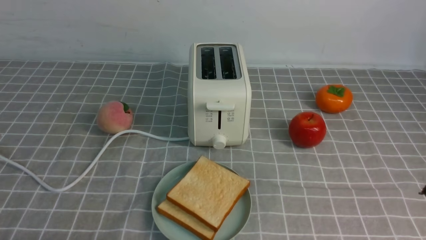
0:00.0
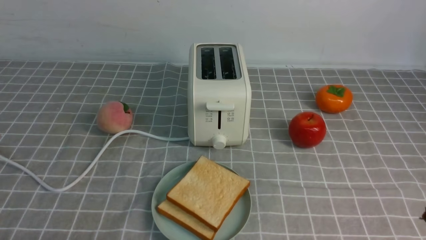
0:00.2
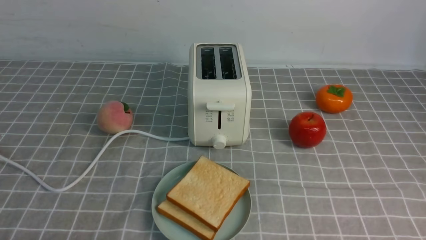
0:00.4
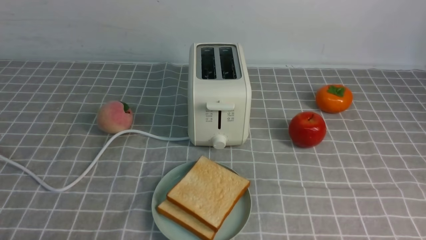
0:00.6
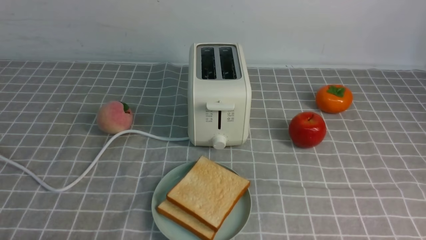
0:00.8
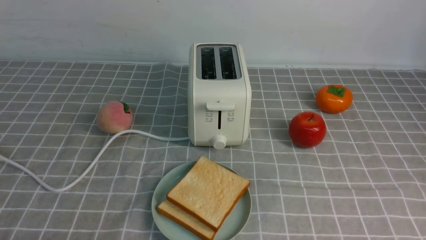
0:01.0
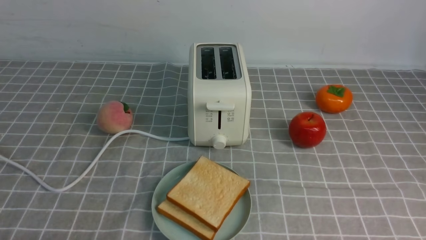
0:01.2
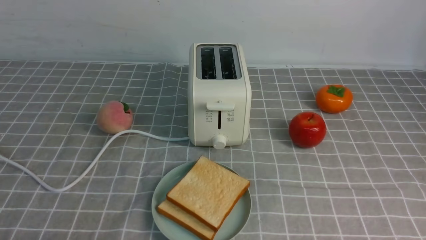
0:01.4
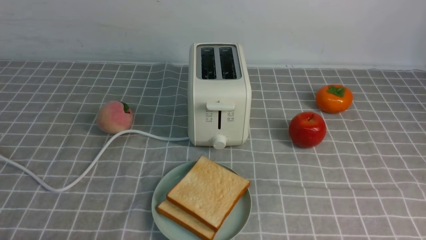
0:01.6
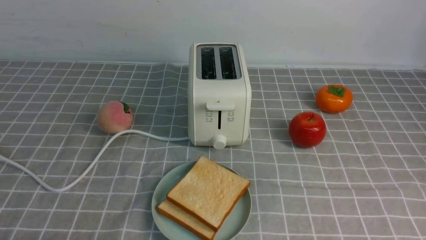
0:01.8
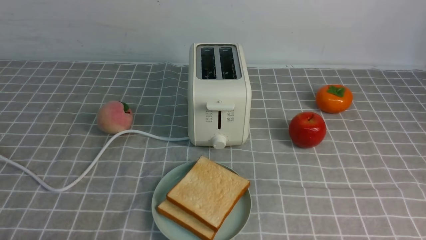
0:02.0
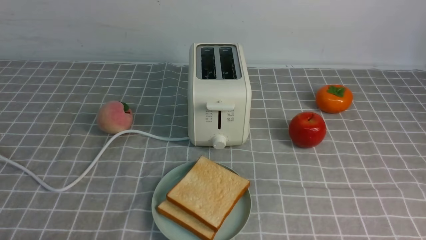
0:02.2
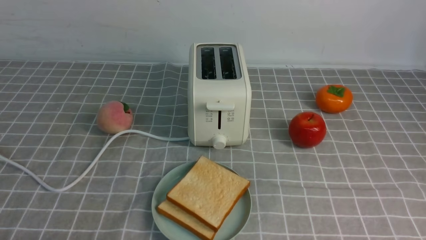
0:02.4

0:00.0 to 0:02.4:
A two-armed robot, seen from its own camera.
Task of the whole recording: take toasted bread from bread machine on grey coffee table place on plate.
0:01.2 to 0:02.4: The two grippers keep their place.

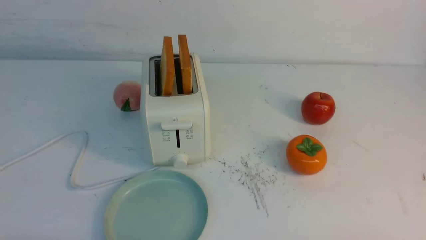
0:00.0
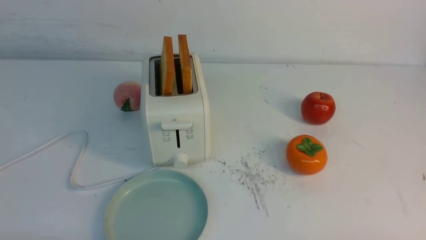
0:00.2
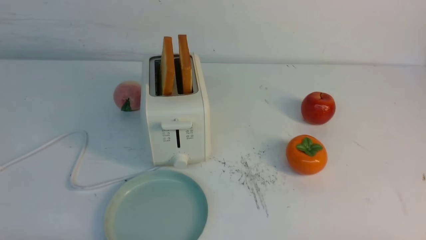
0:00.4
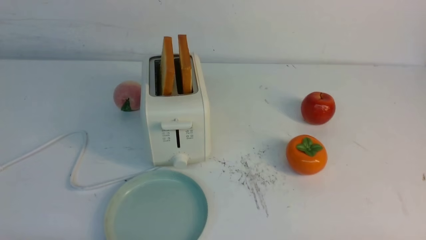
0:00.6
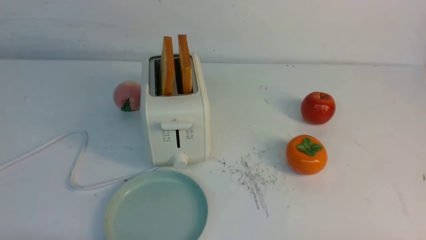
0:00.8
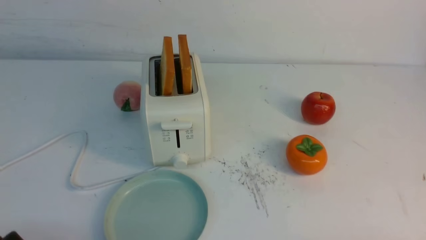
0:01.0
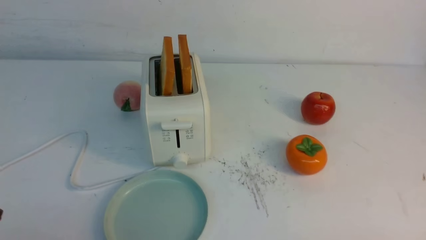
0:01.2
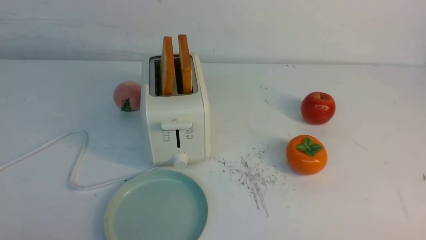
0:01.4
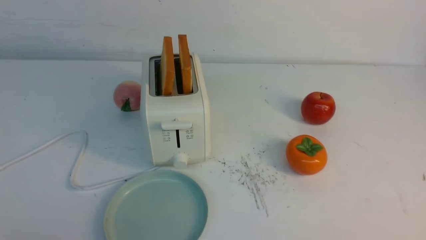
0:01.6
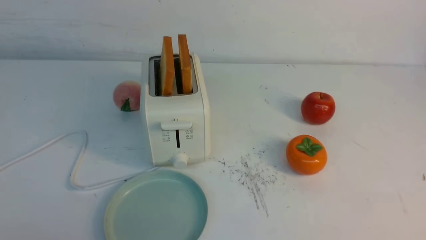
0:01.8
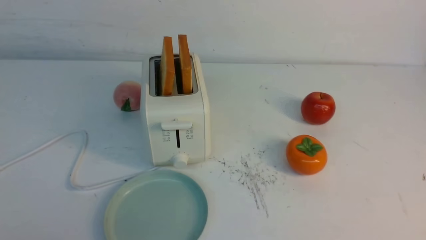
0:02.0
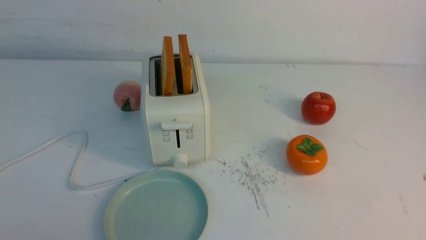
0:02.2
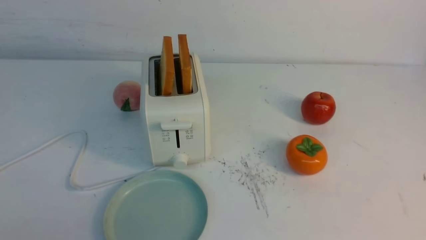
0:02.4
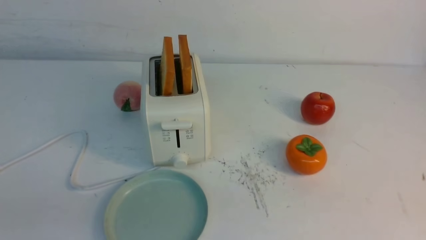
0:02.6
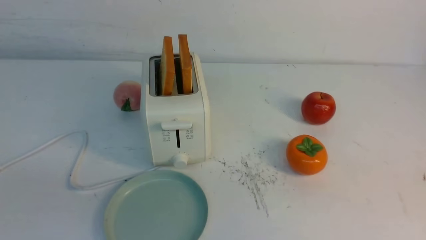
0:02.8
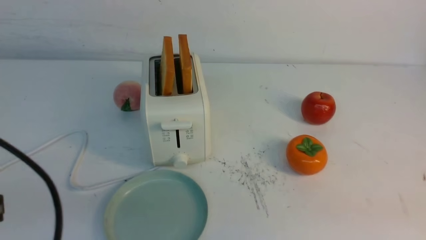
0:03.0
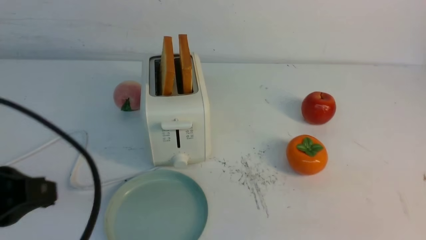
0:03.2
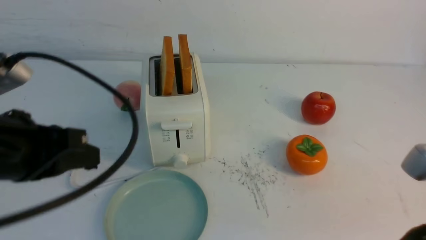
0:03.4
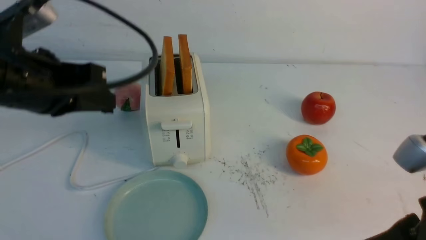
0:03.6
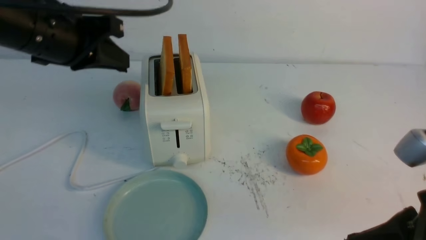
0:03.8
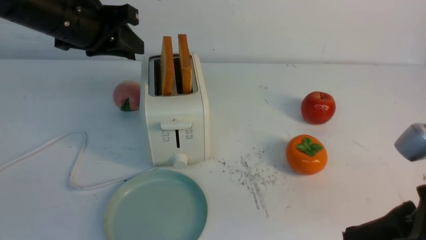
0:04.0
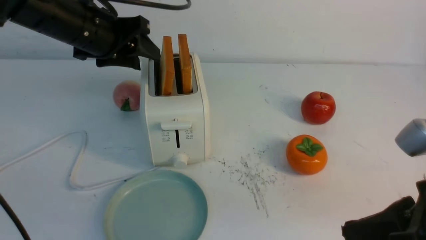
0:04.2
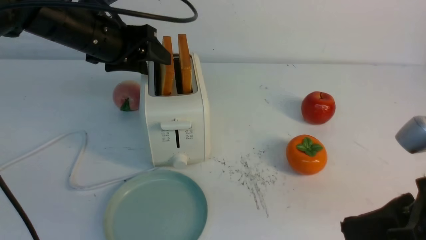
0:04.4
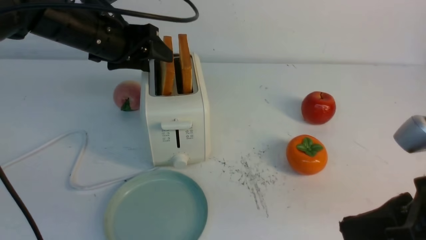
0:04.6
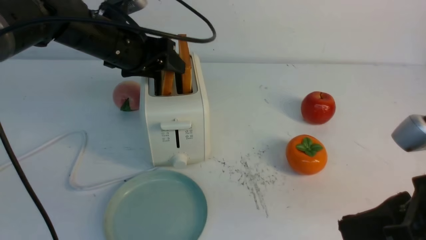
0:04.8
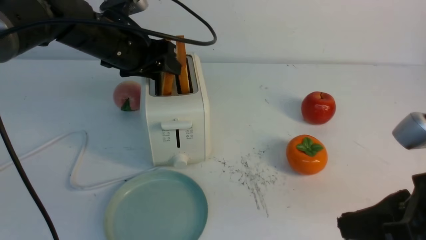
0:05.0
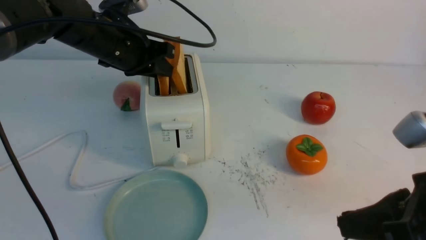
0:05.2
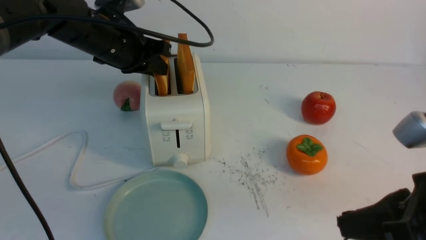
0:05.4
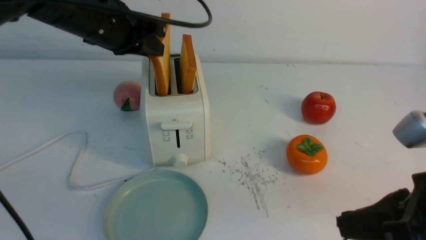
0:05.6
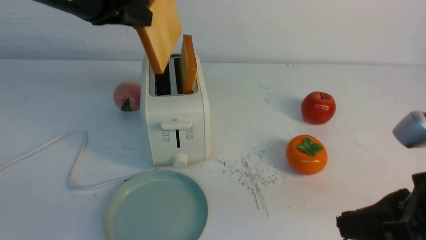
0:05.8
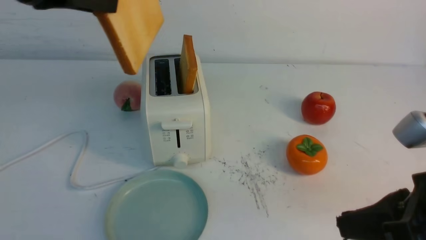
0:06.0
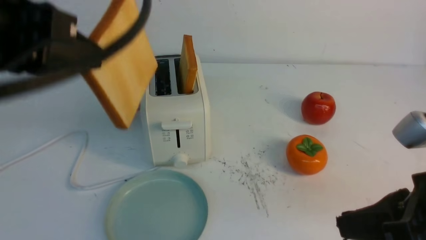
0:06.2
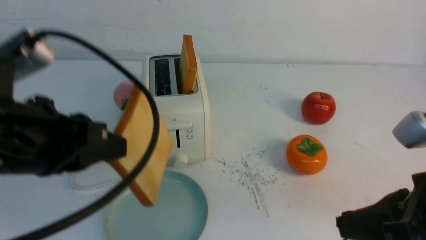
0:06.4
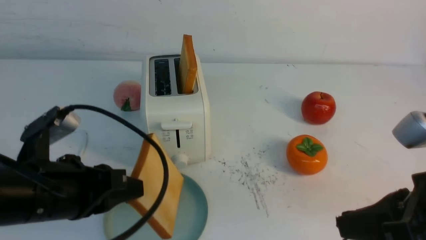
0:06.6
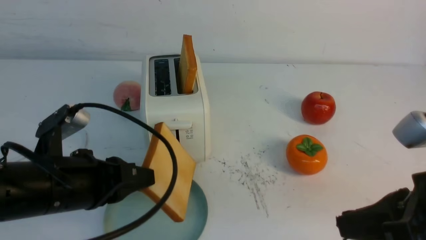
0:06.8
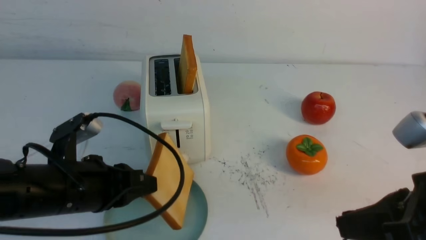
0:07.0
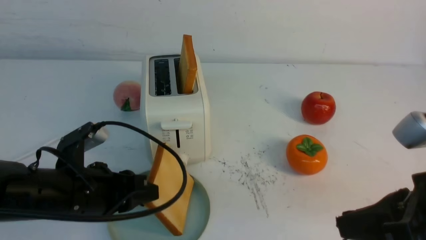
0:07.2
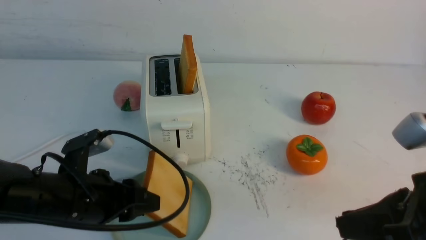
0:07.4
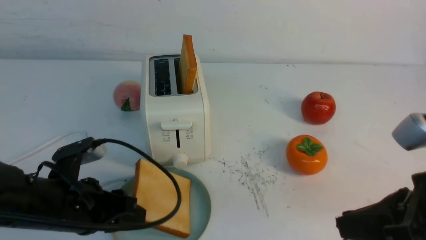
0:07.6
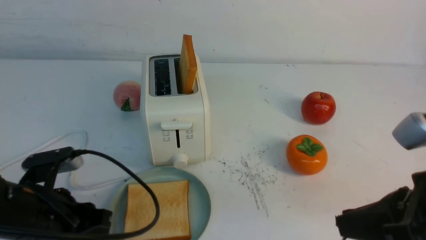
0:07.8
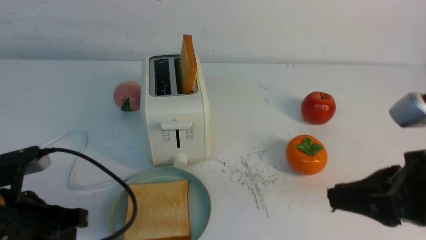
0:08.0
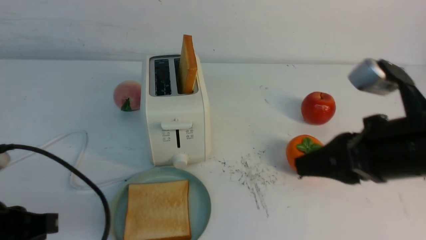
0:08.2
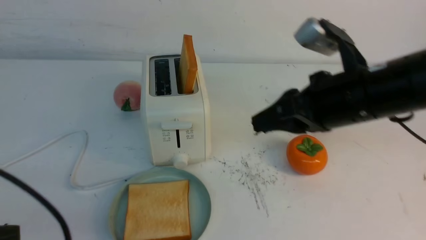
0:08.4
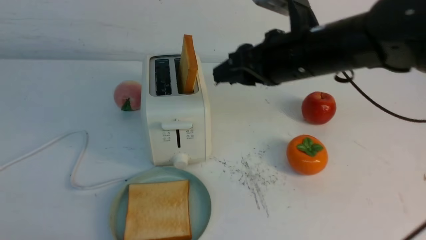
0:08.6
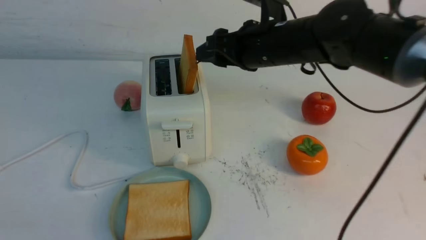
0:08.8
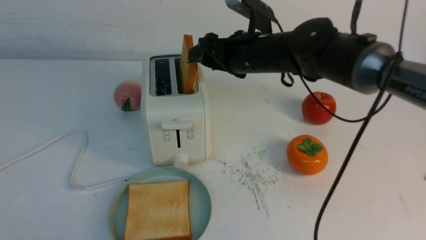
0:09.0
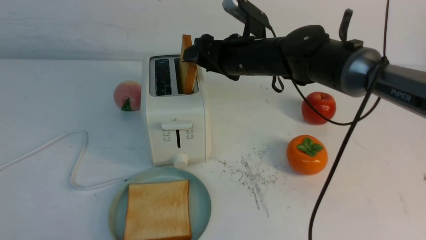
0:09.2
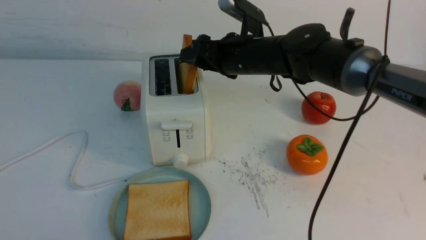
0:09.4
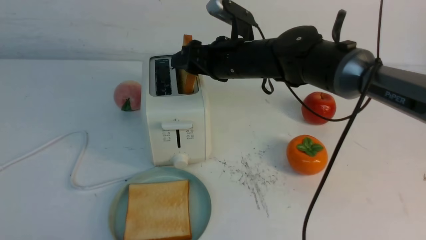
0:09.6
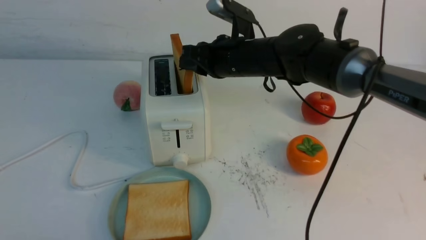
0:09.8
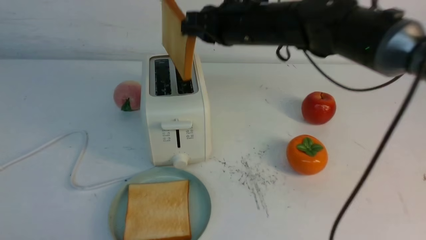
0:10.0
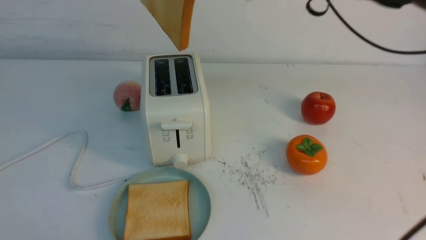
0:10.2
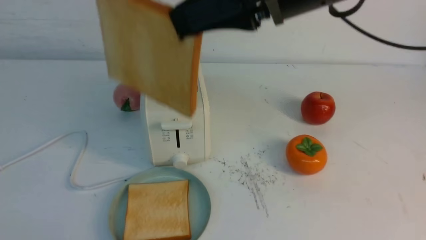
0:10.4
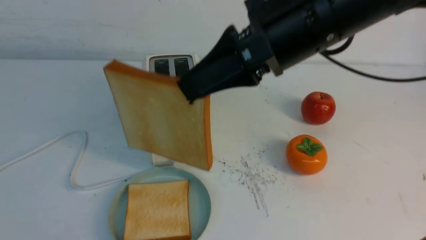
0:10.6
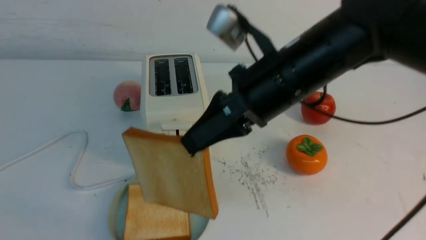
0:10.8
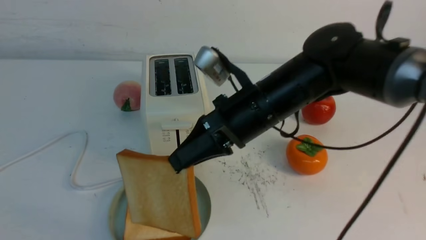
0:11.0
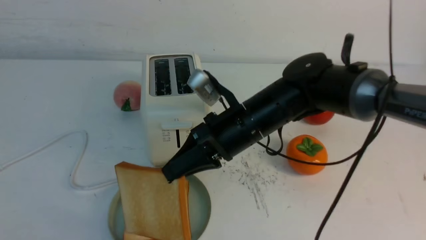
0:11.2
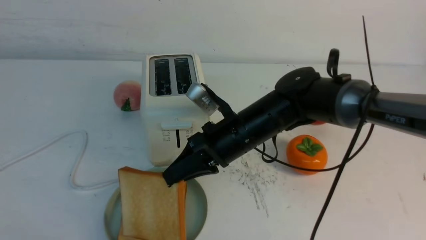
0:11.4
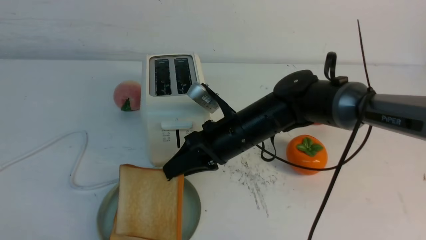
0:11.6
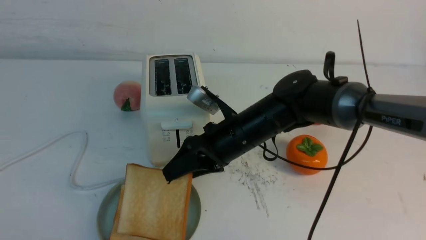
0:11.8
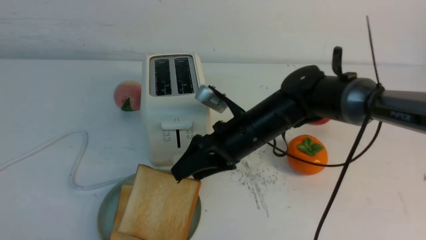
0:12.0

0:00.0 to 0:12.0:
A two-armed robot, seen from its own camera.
Task of the whole recording: take toasted bread from bread machine on white table place on plate.
Step, 0:00.0 to 0:05.6: use the left arm to take out a slice of bread.
Step, 0:05.8 to 0:08.0: use the left arm to put a slice of bread into the empty plate.
Step, 0:08.2 to 0:10.0: use the right arm to take out a slice of bread.
Step, 0:10.2 to 0:12.0: use the right arm to put a slice of bread into the plate.
0:01.6 to 0:03.0: The left gripper travels upward by roughly 10 cm, and closes up.
0:03.0 to 0:04.4: The left gripper goes about 30 cm forward, and opens its fingers. Meanwhile the right gripper moves to the left, some 5 cm.
0:04.4 to 0:06.0: The left gripper heads backward and upward, covering approximately 20 cm, and closes.
0:06.0 to 0:07.6: The left gripper heads downward, covering approximately 25 cm, and opens up.
0:07.6 to 0:09.0: The right gripper shifts approximately 30 cm forward and to the left, and opens up. Meanwhile the left gripper heads backward, covering some 20 cm, and closes its fingers.
0:09.0 to 0:10.4: The right gripper heads backward and upward, covering some 20 cm, and closes.
0:10.4 to 0:12.0: The right gripper heads downward, covering some 20 cm, and opens its fingers.

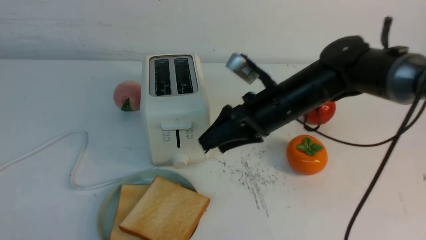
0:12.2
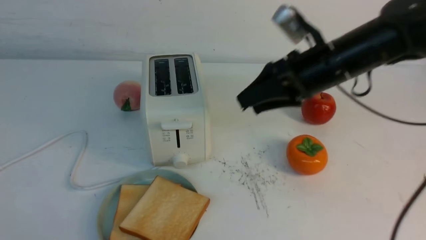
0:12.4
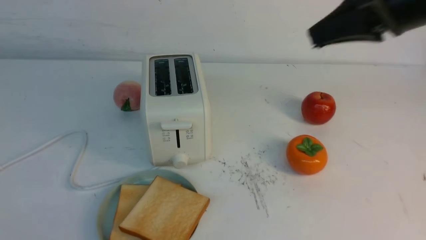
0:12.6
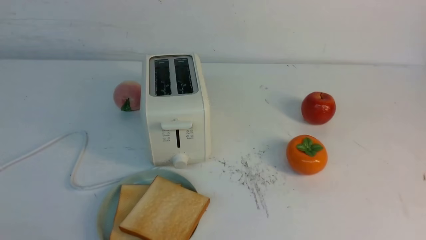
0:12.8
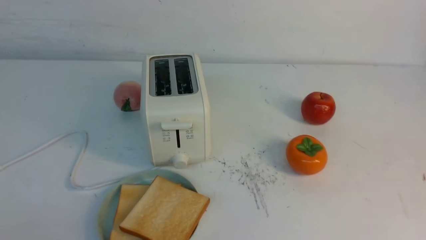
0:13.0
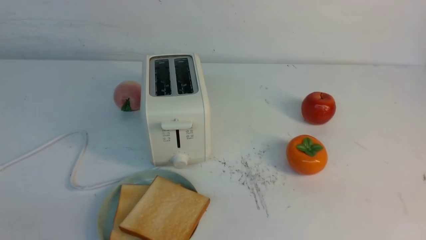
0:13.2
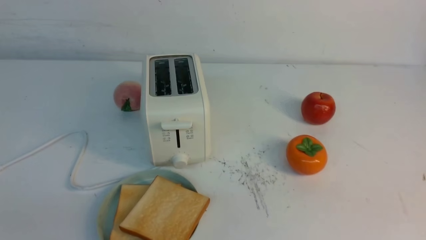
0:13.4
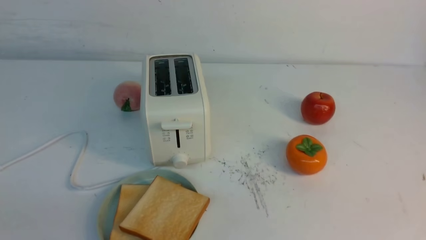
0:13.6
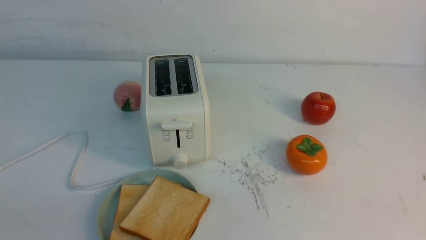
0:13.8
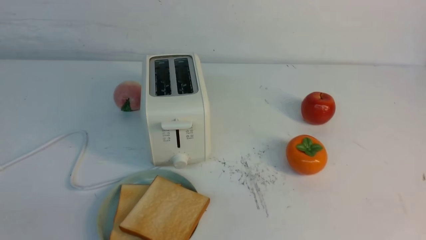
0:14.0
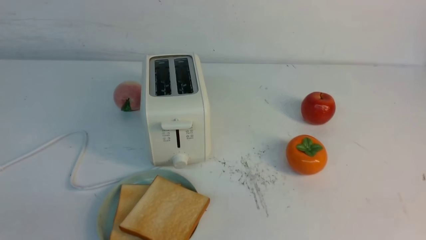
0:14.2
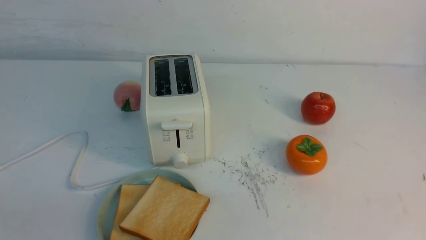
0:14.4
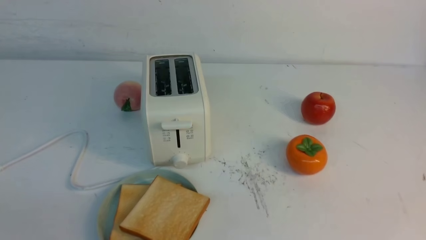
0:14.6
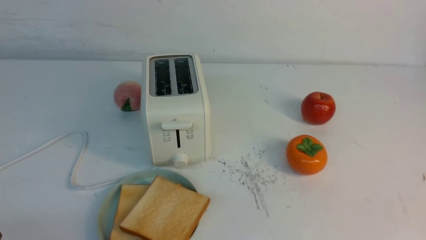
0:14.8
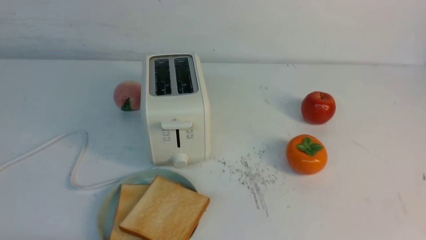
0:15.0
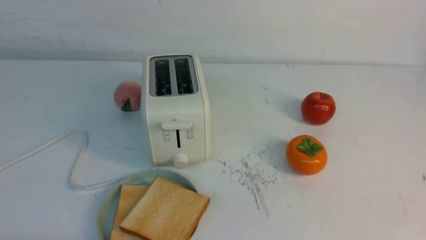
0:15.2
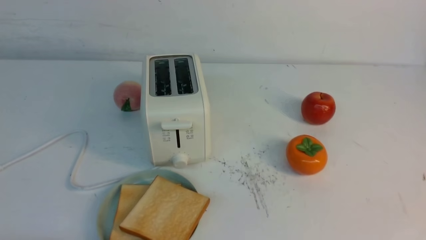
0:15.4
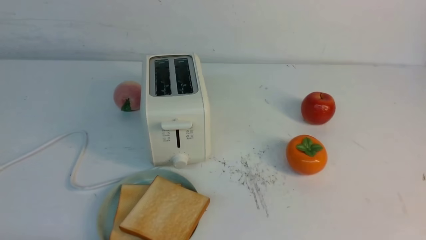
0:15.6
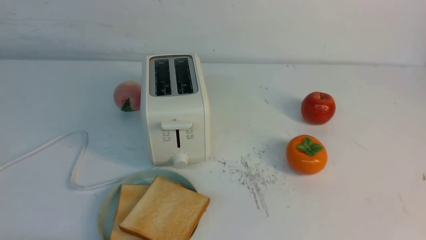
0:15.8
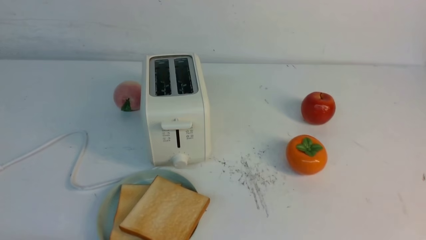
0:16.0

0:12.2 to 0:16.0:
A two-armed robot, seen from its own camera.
Task of the whole recording: take toasted bread from bread machine on white table place on plate.
0:12.2 to 0:13.4: The right gripper heads backward and to the right, covering about 40 cm, and closes.
